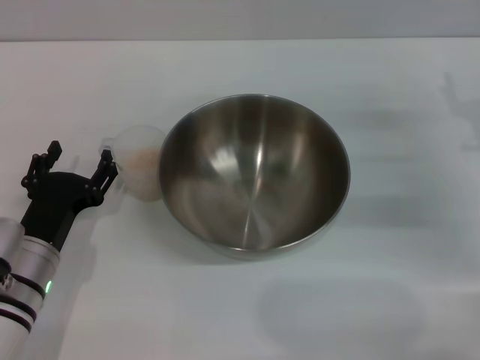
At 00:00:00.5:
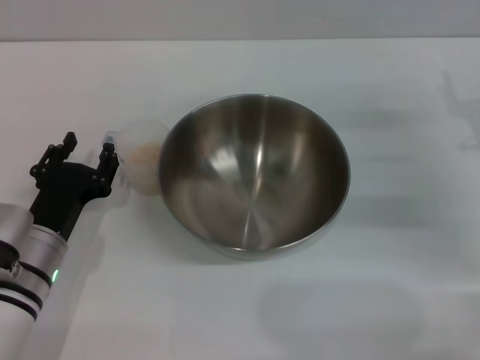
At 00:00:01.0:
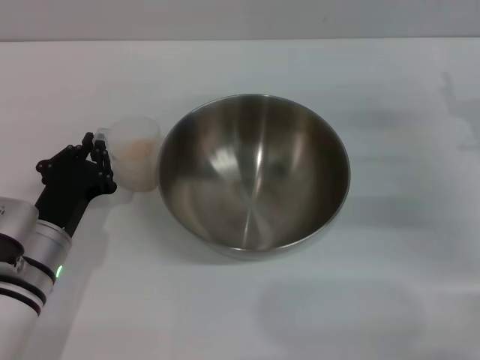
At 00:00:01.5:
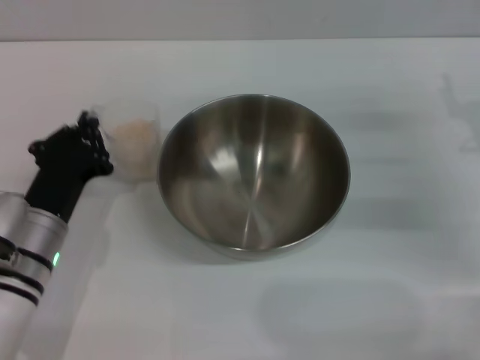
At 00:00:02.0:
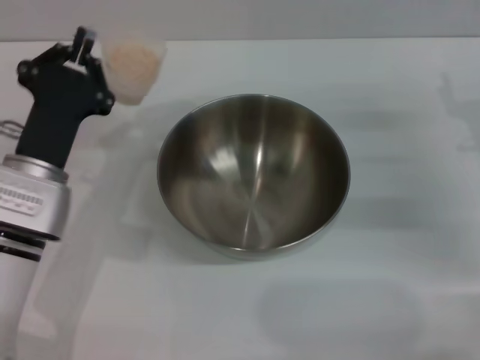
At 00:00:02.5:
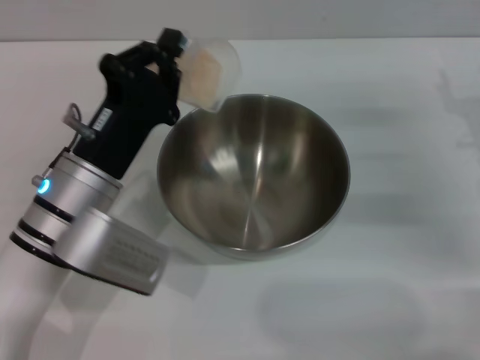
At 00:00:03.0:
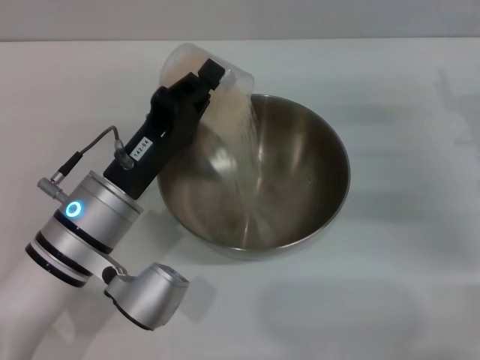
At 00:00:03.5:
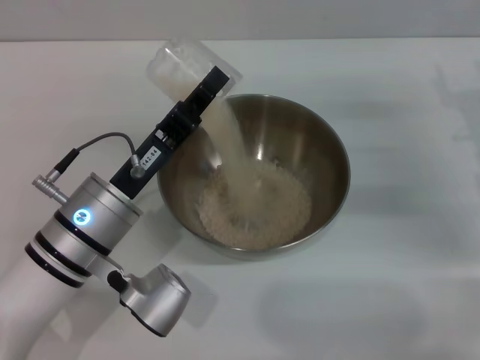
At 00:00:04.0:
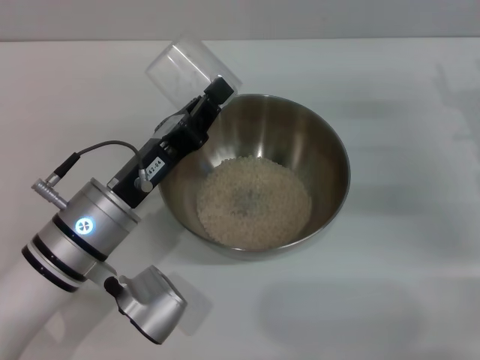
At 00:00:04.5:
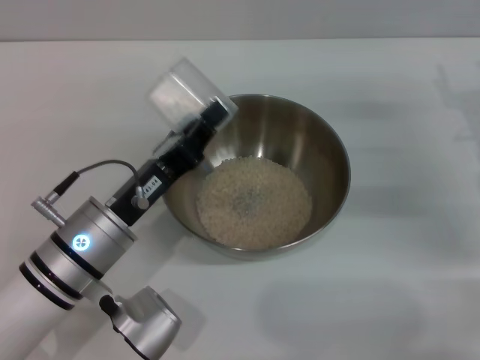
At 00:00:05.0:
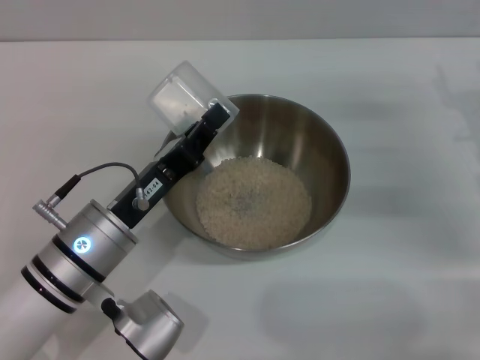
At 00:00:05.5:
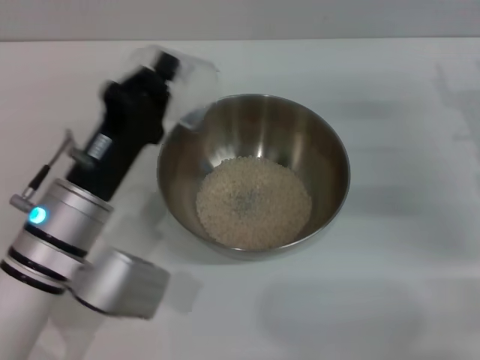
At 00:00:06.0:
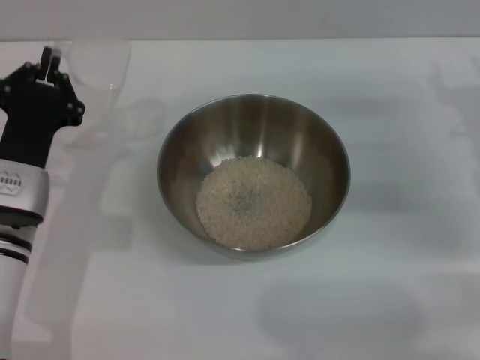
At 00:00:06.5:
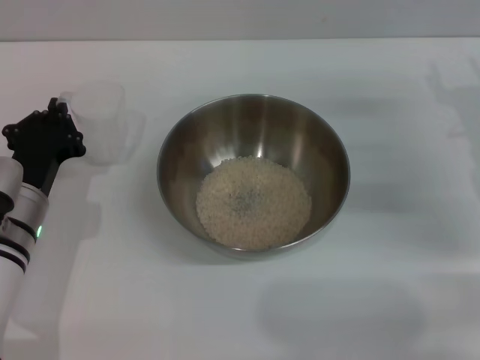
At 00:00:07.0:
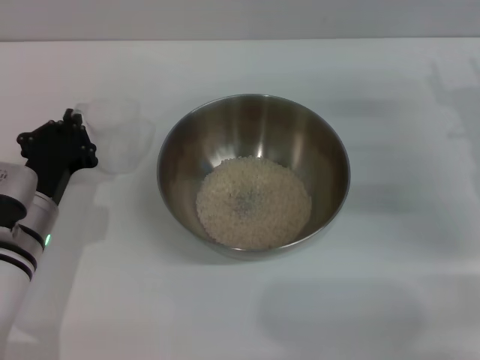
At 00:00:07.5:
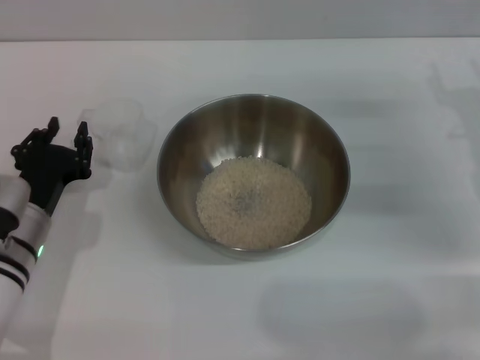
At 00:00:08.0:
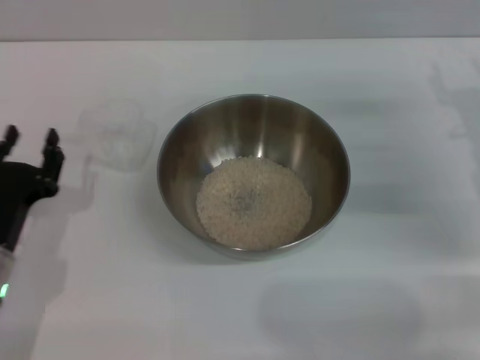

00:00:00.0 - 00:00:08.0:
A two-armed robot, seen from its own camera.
Task of the whole recording: Place the bowl in the middle of the table with one hand and pour the rice from the grain cup into it with the other hand.
Step, 00:00:02.0 - 00:00:04.0: Pour the rice from the cup into the bowl with the left gripper.
Step, 00:00:05.0 - 00:00:07.5: Place the cup on the table with the left gripper.
00:00:00.0 - 00:00:02.0: The left gripper moves upward, some 5 cm, and closes its fingers.
00:00:04.0 - 00:00:06.0: The left gripper travels to the left by some 5 cm.
00:00:06.0 - 00:00:08.0: The left gripper shifts approximately 5 cm backward, and opens up.
